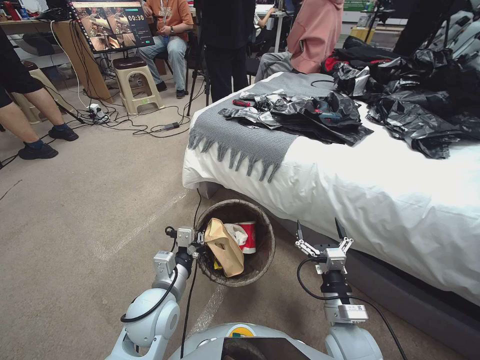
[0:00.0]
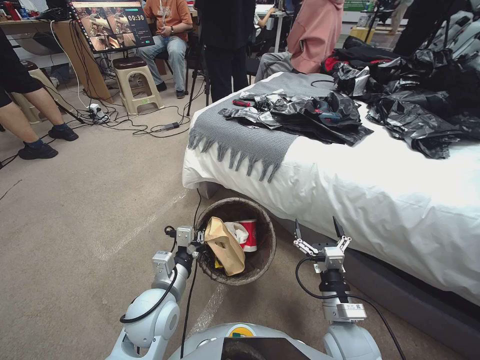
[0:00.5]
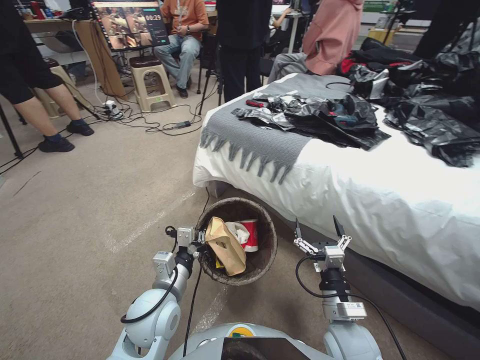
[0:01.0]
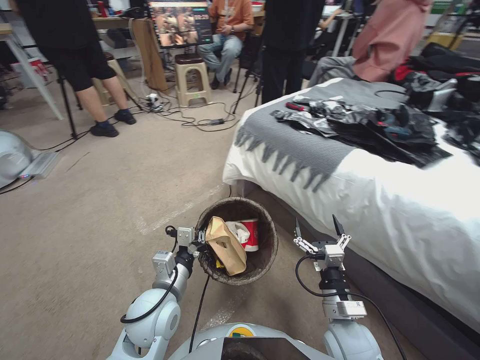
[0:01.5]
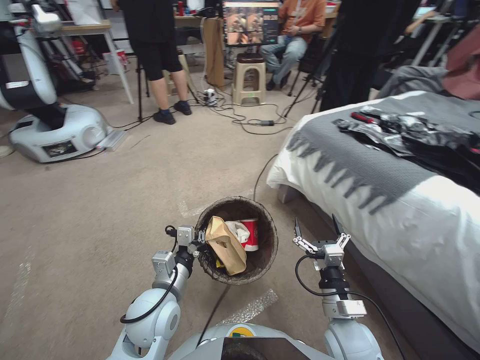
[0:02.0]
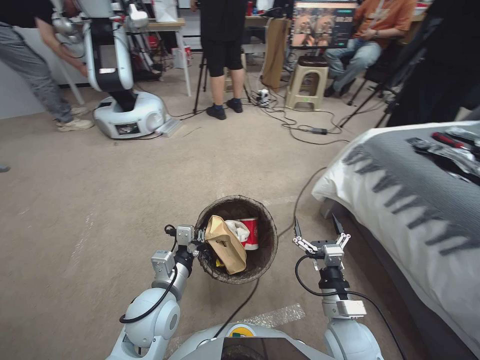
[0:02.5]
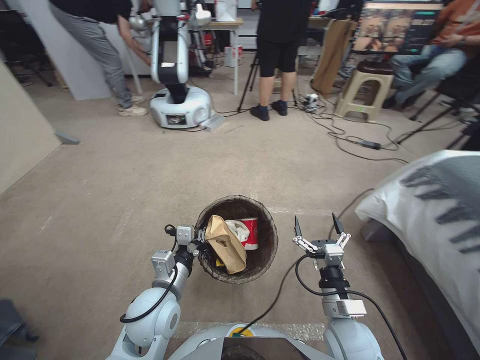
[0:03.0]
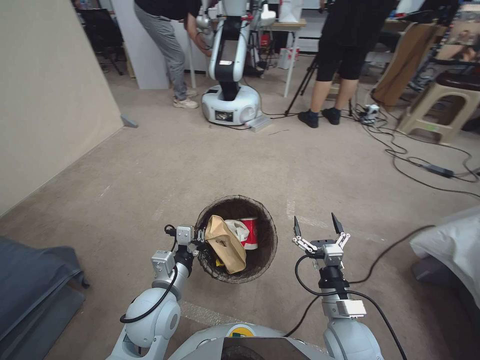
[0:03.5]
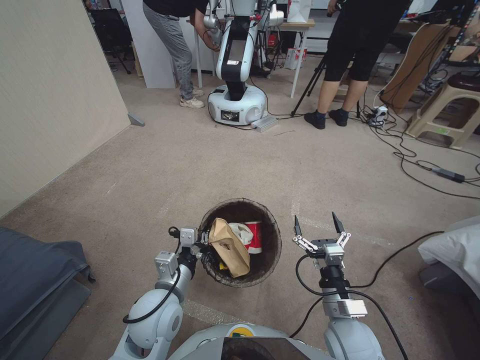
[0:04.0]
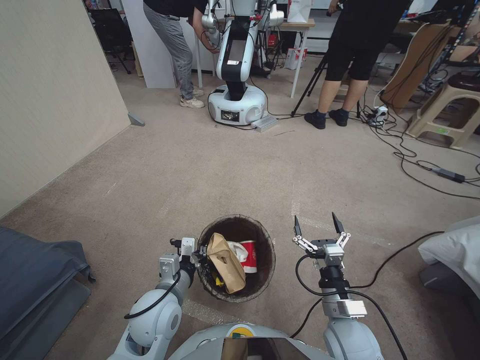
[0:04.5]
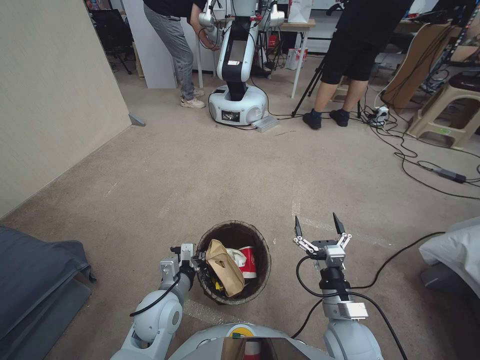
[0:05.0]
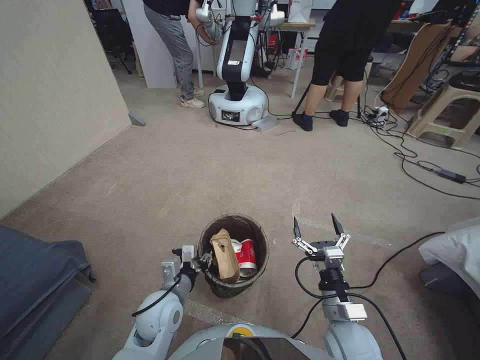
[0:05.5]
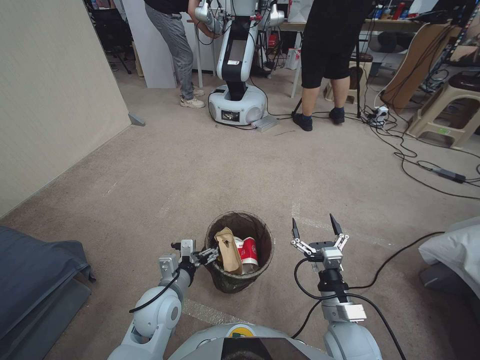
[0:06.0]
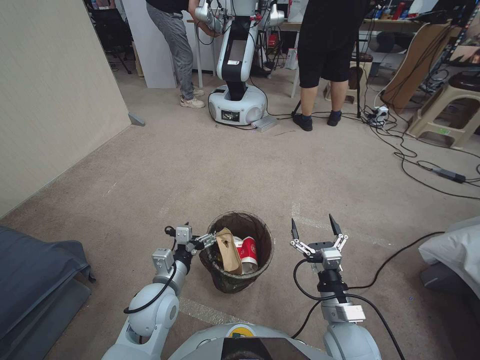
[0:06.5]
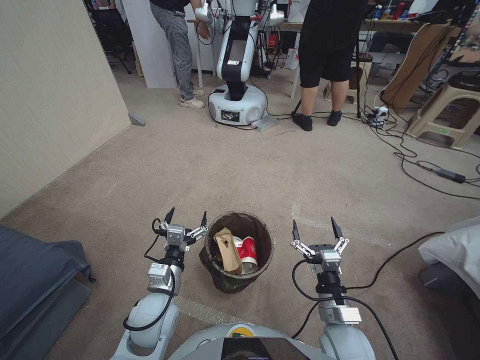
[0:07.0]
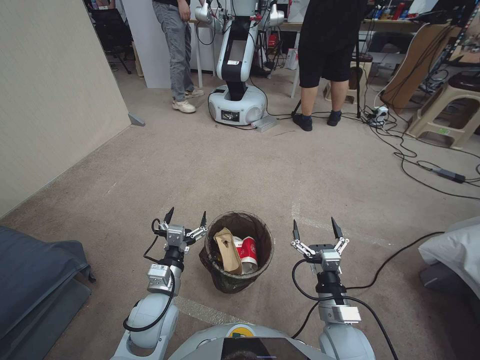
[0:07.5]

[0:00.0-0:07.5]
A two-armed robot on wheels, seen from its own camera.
Task of the whole recording: Pick up the trash bin, then pick up the garbage from the floor and place it into the trash bin.
0:04.0 to 0:05.5: The left gripper travels downward by some 5 cm.
0:05.5 to 0:07.5: The left gripper opens its fingers.

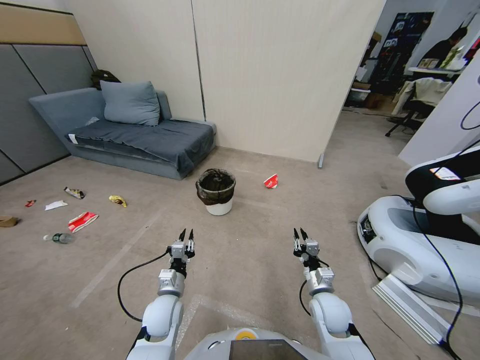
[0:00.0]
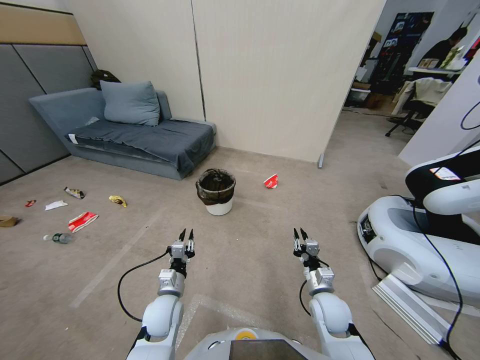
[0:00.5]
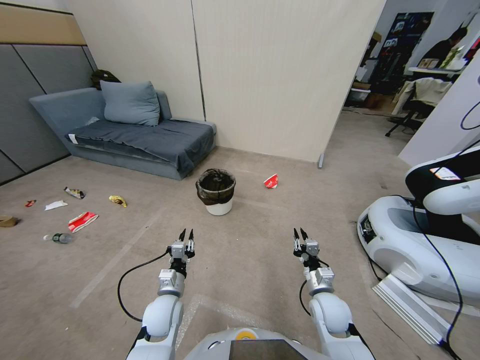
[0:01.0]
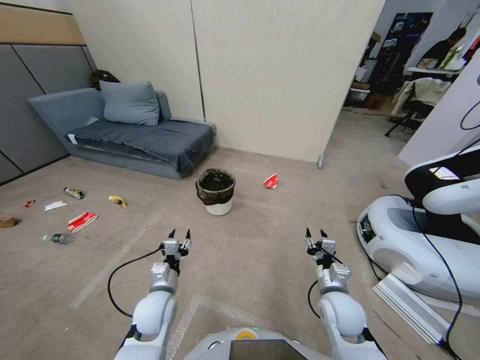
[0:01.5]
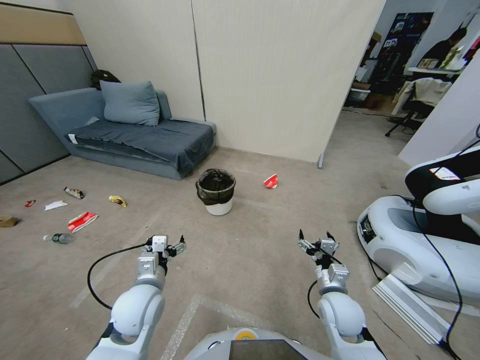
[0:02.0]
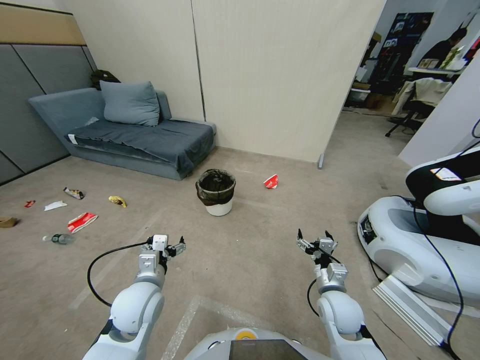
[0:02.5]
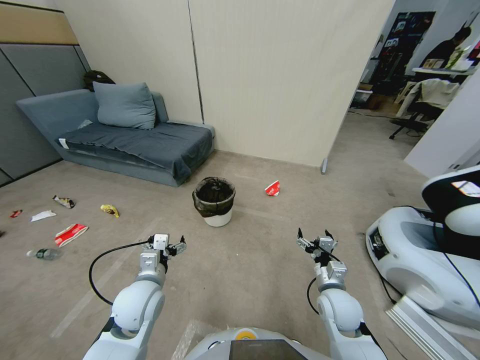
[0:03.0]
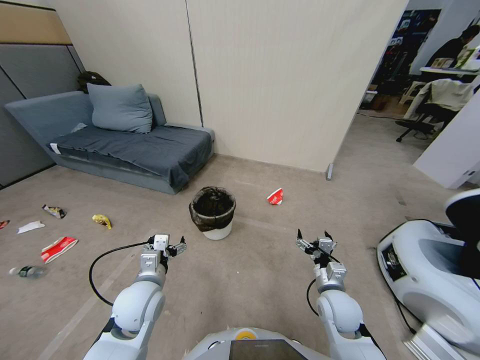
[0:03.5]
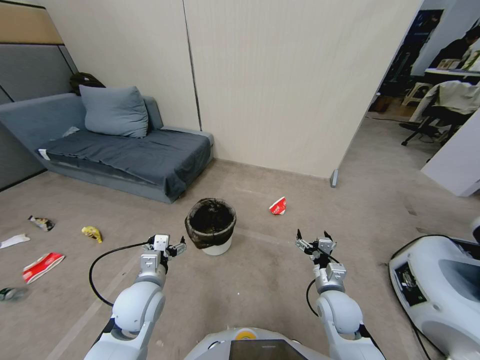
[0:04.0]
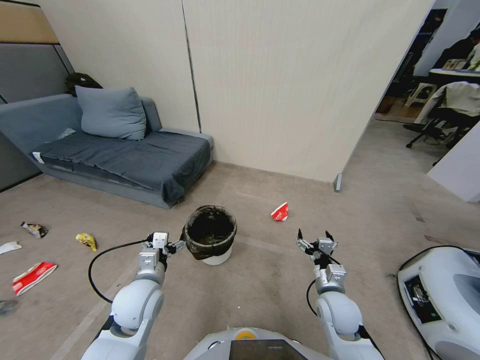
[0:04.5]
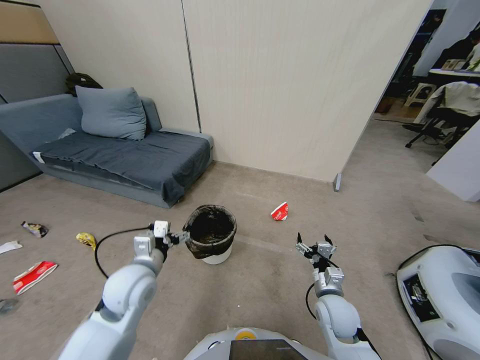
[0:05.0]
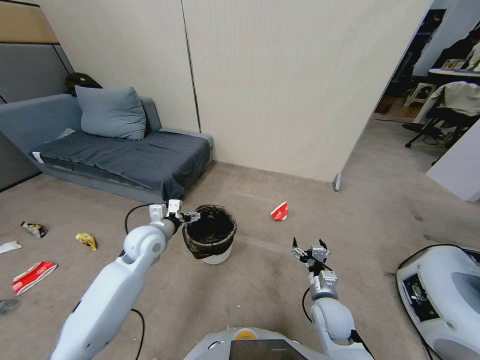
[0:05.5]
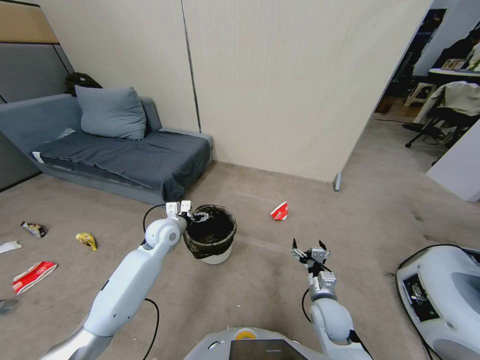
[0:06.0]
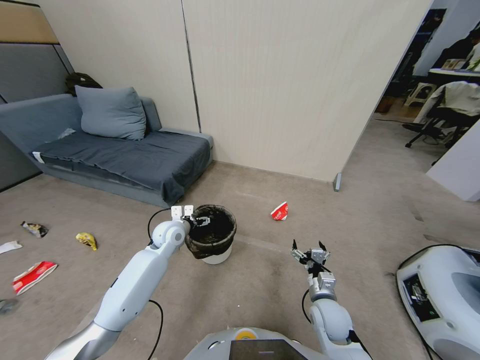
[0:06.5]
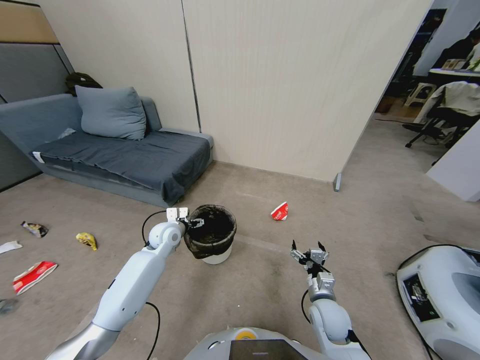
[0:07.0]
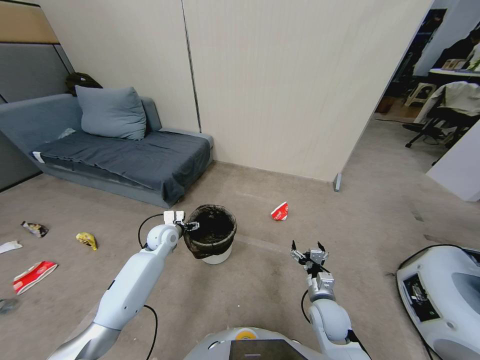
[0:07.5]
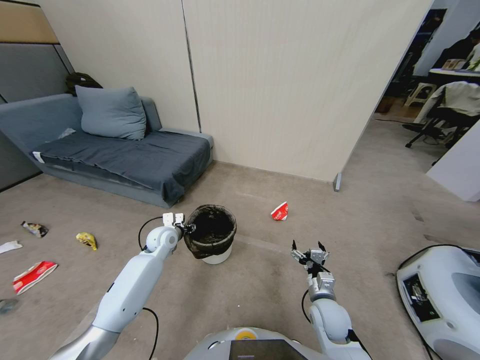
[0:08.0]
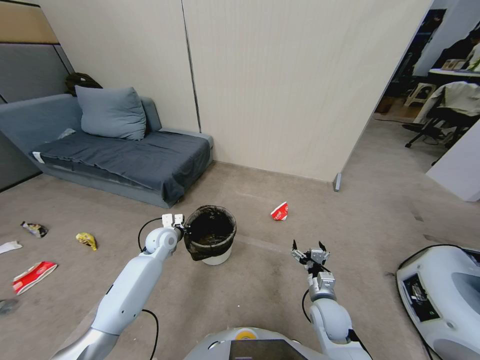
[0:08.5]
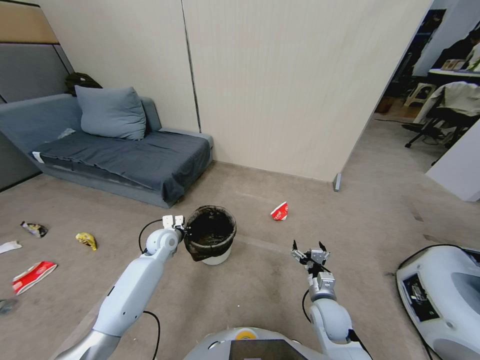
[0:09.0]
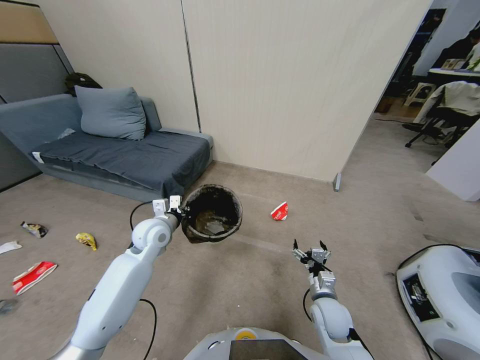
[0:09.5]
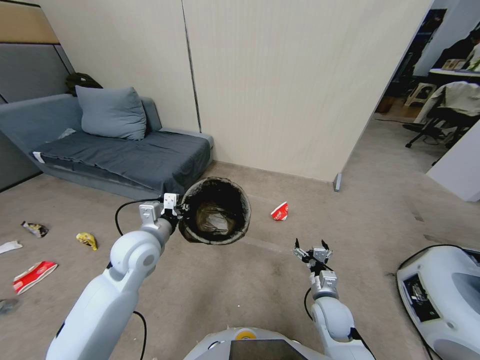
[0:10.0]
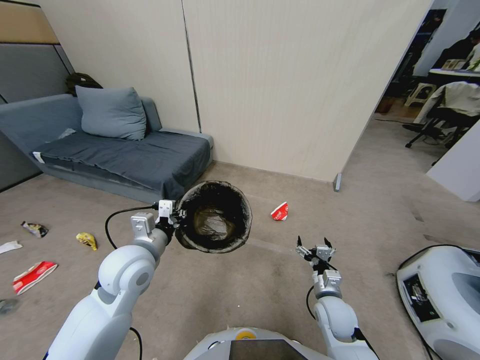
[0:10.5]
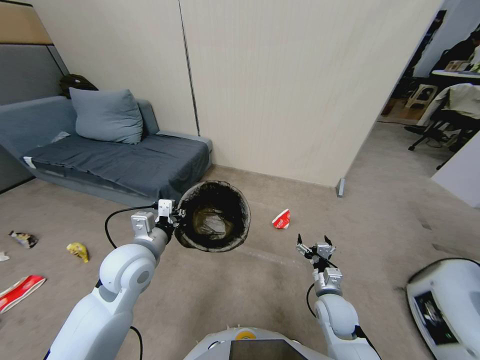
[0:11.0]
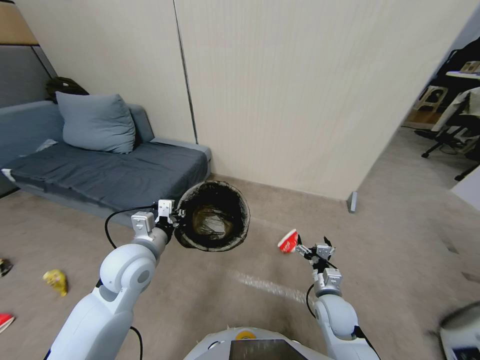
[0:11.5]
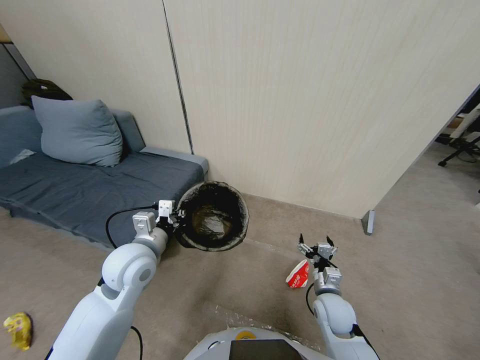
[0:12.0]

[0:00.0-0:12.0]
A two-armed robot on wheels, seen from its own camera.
Task of the whole recording: Pick up the trash bin, then pick up the garbage from the floor and place it into the trash bin.
0:04.0 to 0:06.0: The left gripper heads forward, covering some 20 cm.
0:06.0 to 0:08.0: The left gripper goes approximately 5 cm downward, and closes its fingers.
0:08.0 to 0:10.0: The left gripper heads upward and backward, covering roughly 20 cm, and closes.

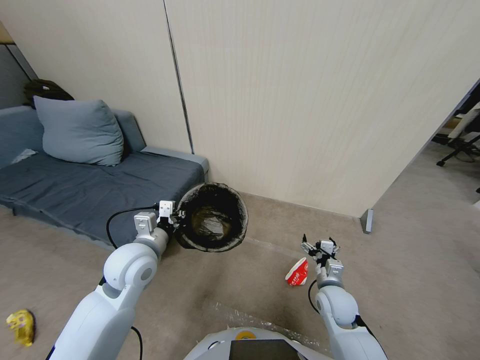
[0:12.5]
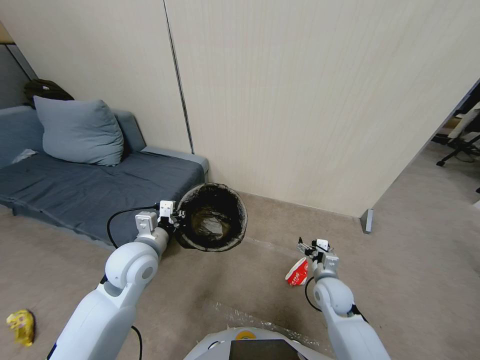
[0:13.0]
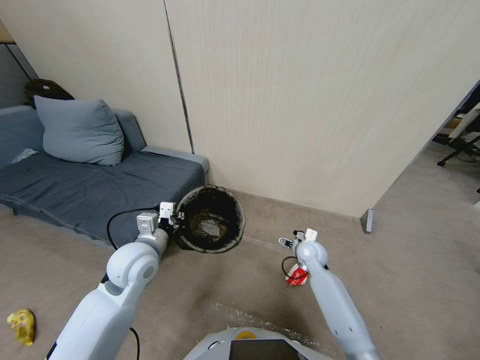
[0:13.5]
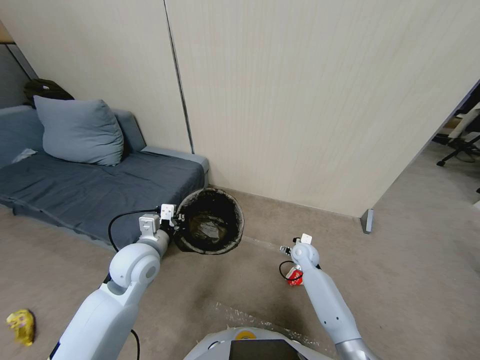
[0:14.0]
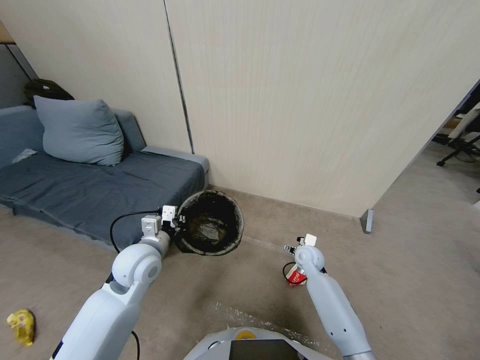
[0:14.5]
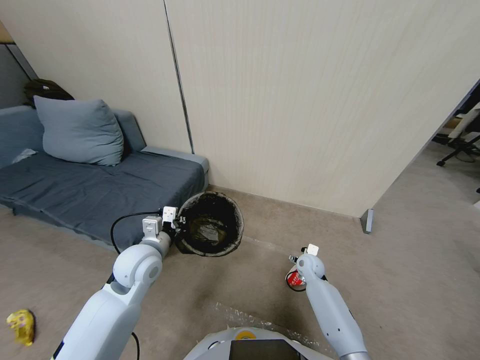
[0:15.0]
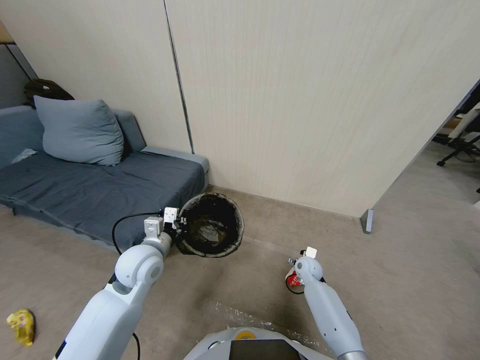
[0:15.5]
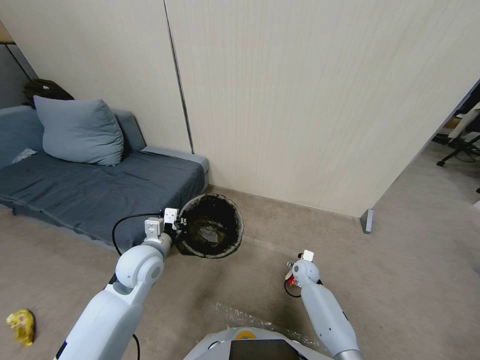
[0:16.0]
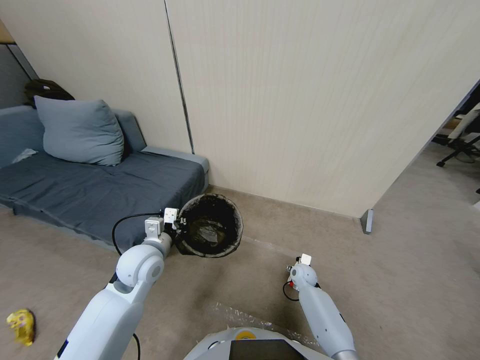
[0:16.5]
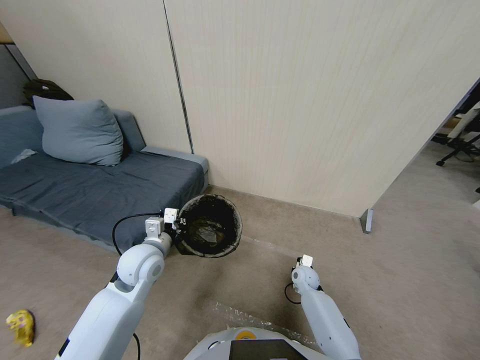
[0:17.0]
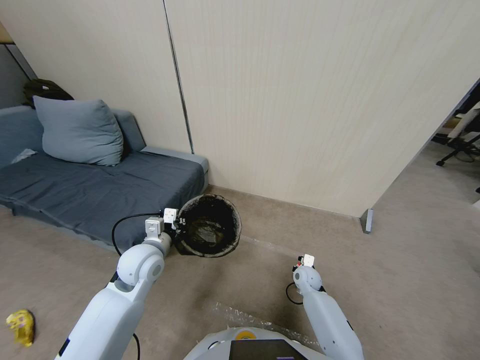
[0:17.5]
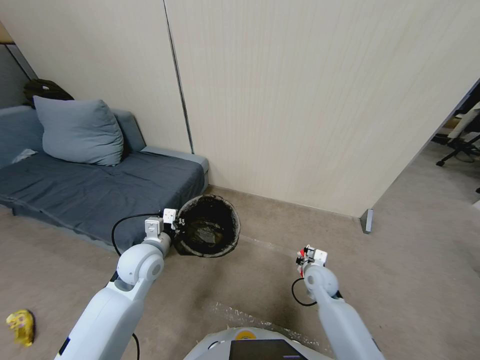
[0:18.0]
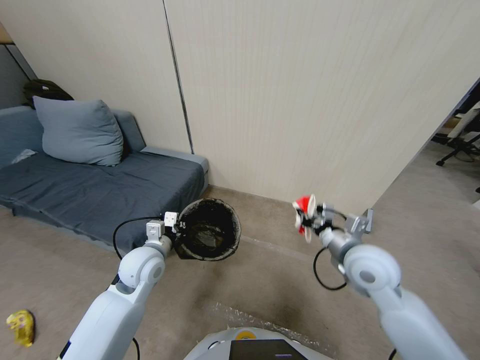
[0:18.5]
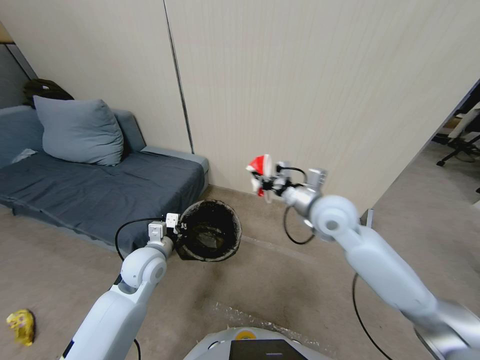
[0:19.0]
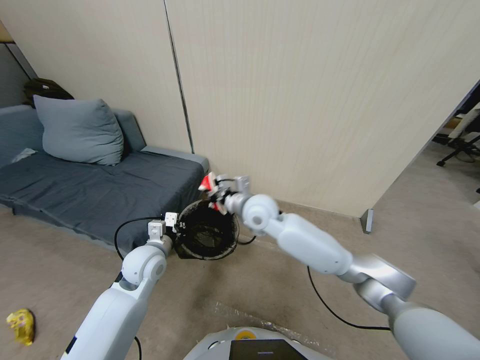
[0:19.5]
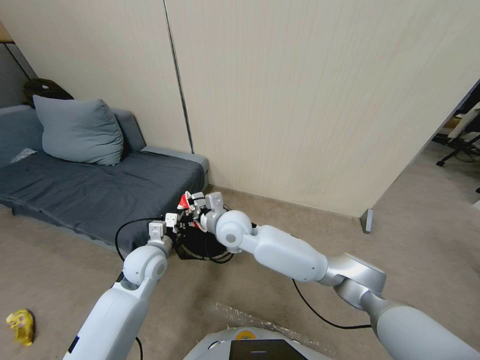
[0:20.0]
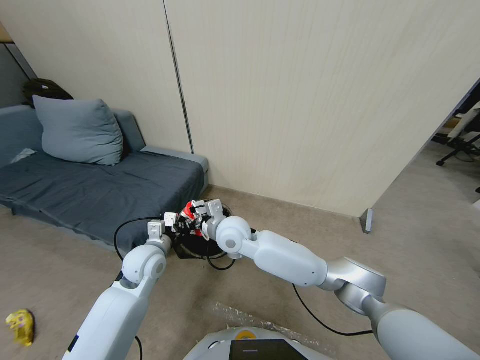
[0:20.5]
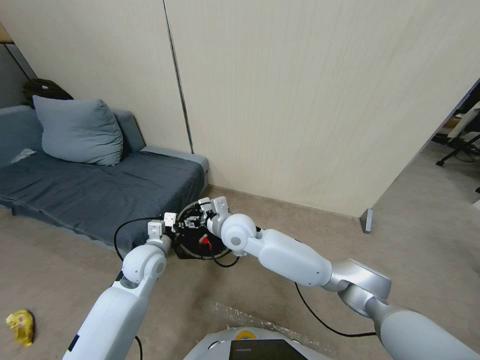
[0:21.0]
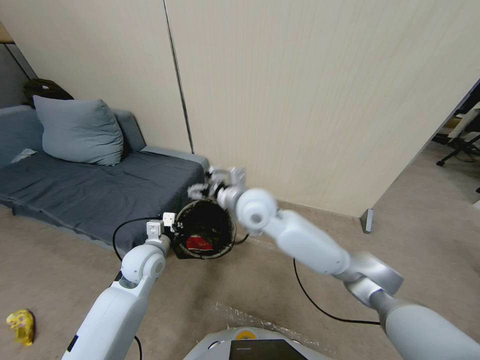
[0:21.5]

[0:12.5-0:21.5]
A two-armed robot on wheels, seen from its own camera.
Task of the whole recording: Pick up the trash bin, then pick up the garbage from the floor and place it into the trash bin.
0:12.5 to 0:14.5: The right gripper goes approximately 15 cm forward.
0:14.5 to 0:17.0: The right gripper shifts about 10 cm downward, and closes its fingers.
0:17.0 to 0:19.5: The right gripper is displaced upward and to the left by roughly 40 cm.
0:19.5 to 0:21.5: The right gripper travels upward by about 10 cm, and opens.
